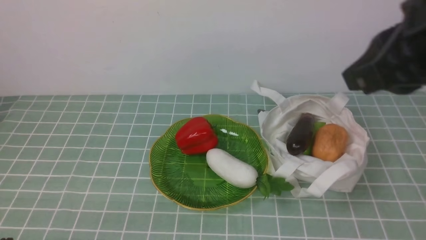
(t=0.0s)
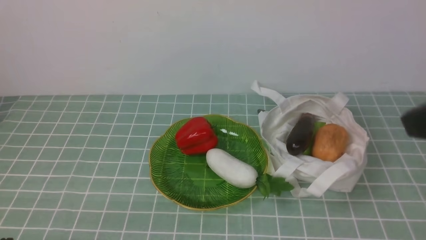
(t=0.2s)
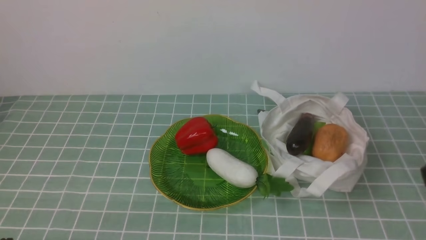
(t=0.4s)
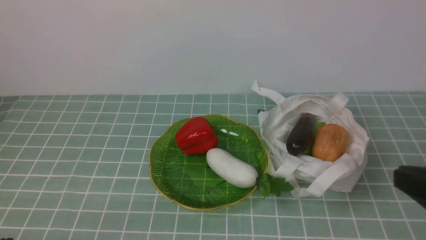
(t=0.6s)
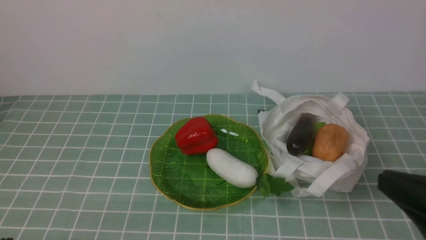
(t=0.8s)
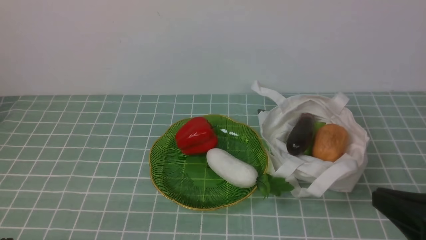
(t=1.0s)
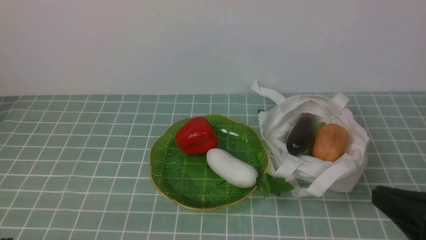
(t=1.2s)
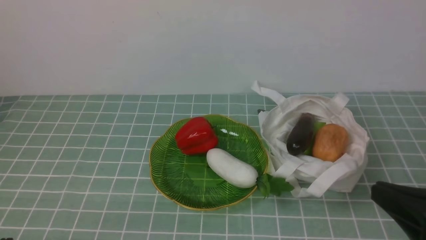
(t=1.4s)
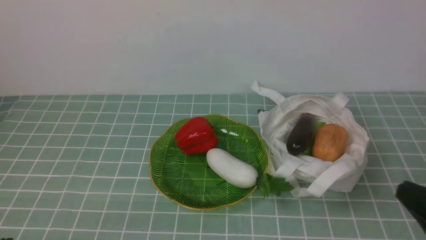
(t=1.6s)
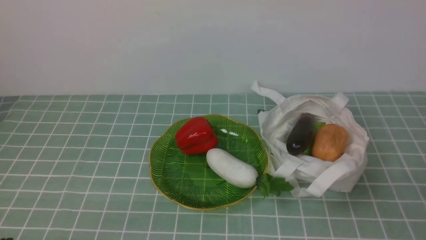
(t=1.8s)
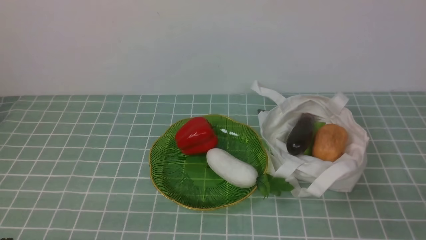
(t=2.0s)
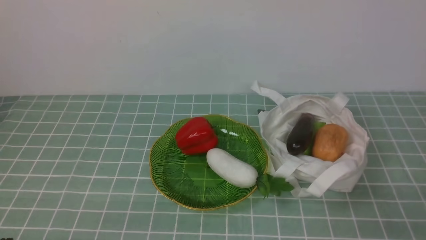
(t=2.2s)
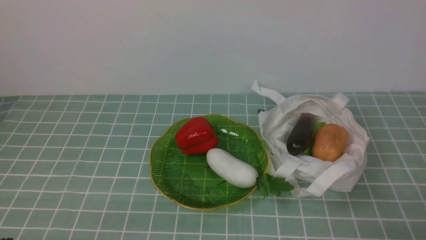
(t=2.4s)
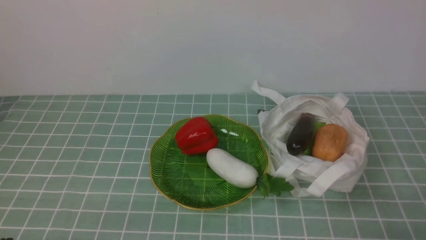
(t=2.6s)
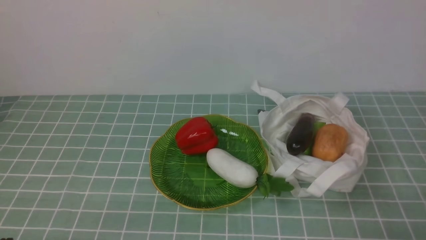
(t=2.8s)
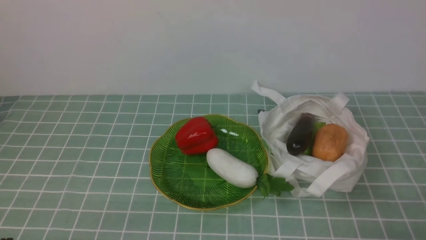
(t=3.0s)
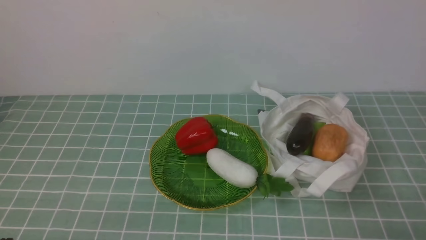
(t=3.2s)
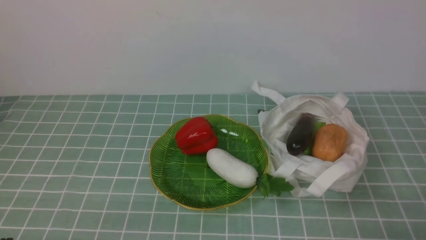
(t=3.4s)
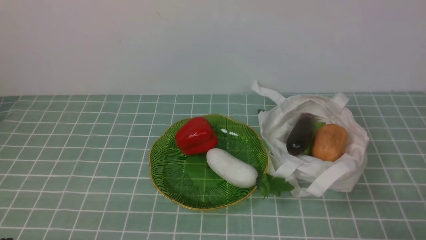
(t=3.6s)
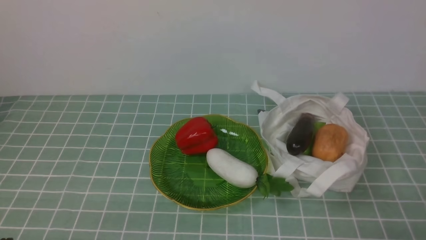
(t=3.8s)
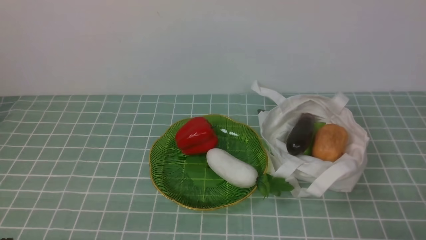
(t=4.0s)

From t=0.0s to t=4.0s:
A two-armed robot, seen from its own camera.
Task of the whole recording: take vegetables from cloth bag on blue coffee tablecloth place on plate.
From t=0.0s to t=1.4s: The right gripper shifts some 20 cm downward and backward.
From t=1.4s to t=2.6s: The right gripper goes roughly 10 cm downward.
From t=2.6s to t=4.0s: The two grippers keep their place.
